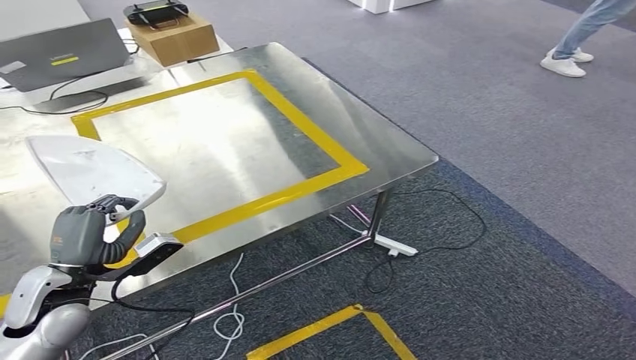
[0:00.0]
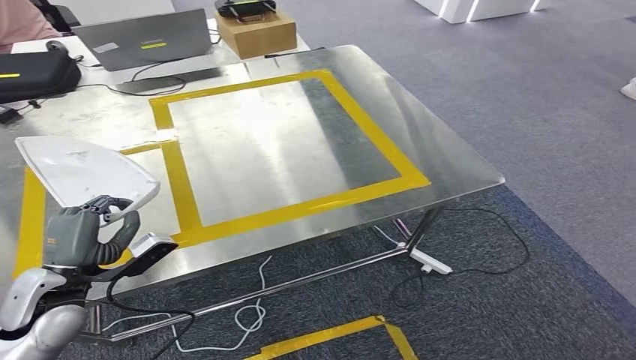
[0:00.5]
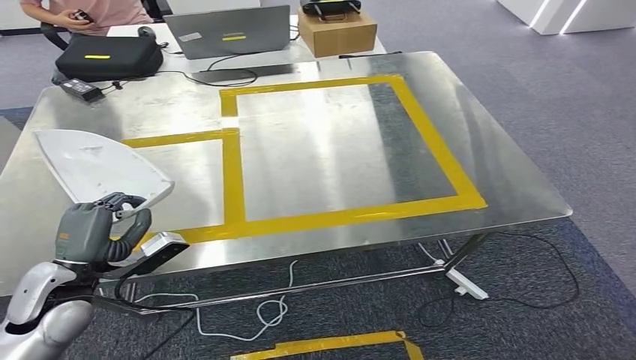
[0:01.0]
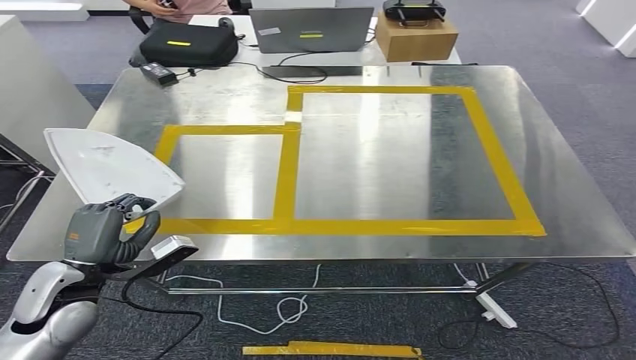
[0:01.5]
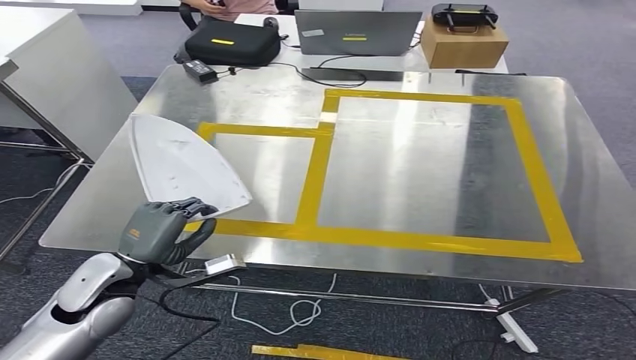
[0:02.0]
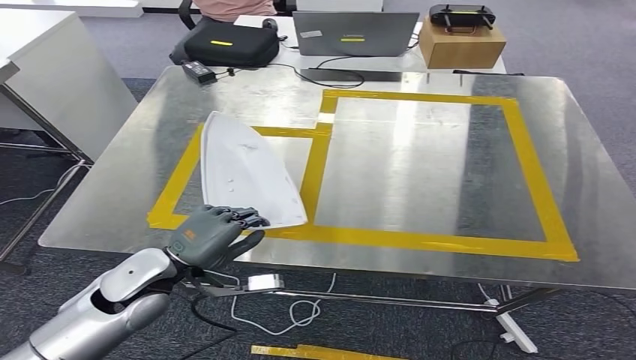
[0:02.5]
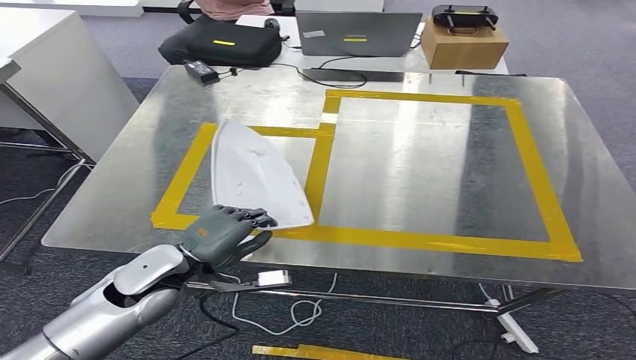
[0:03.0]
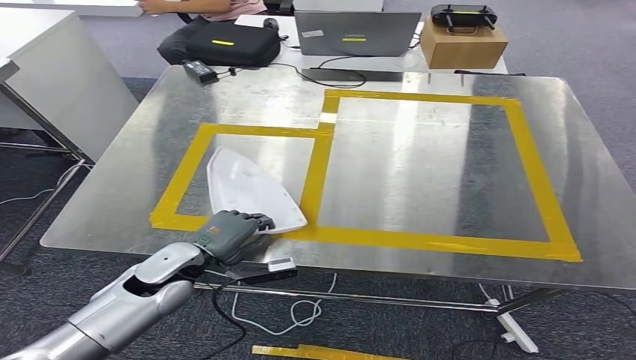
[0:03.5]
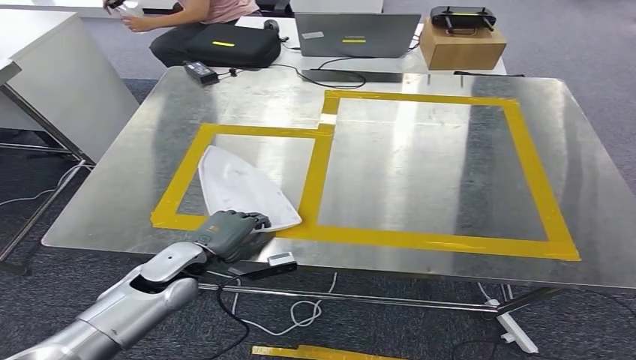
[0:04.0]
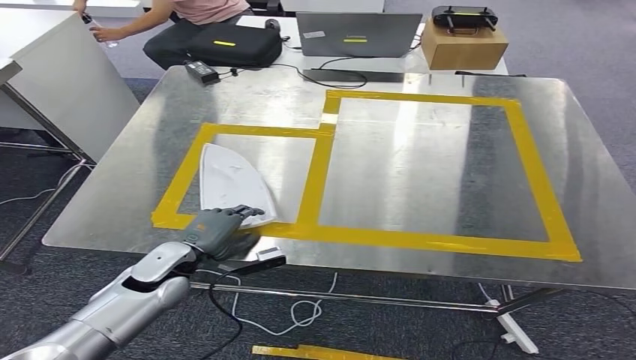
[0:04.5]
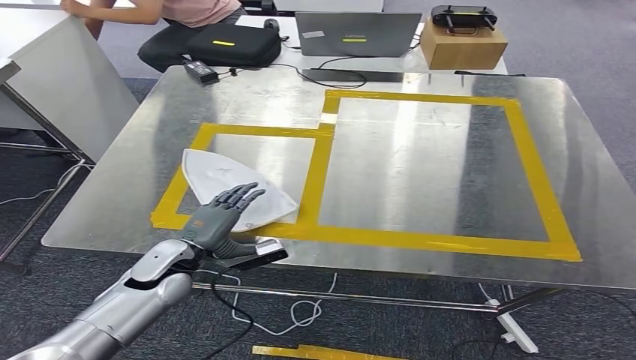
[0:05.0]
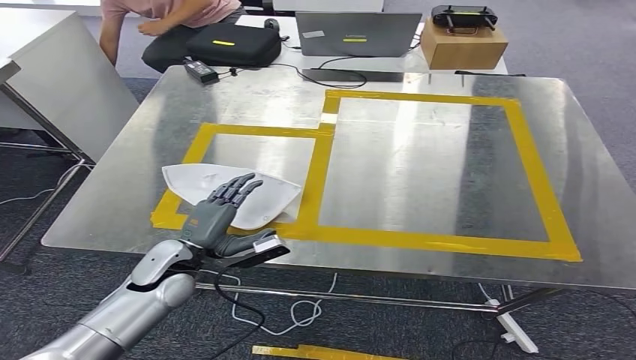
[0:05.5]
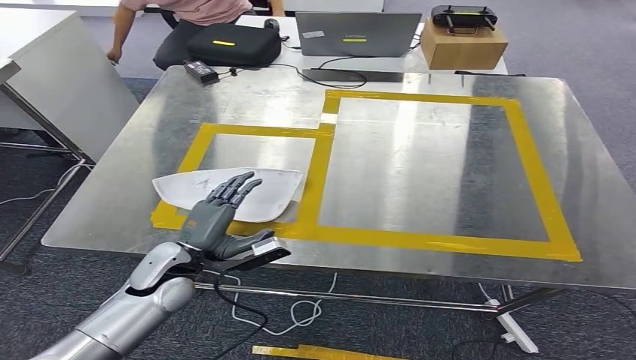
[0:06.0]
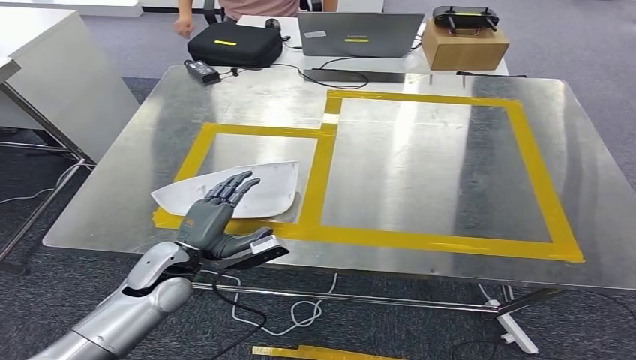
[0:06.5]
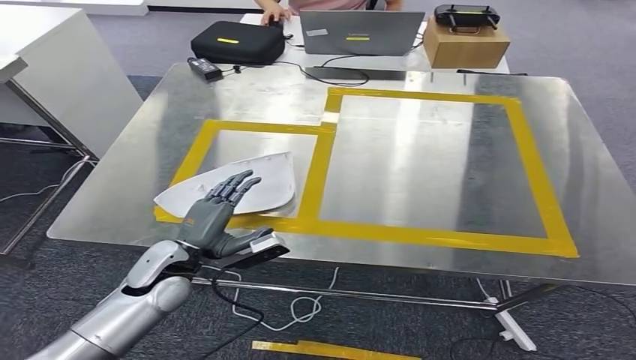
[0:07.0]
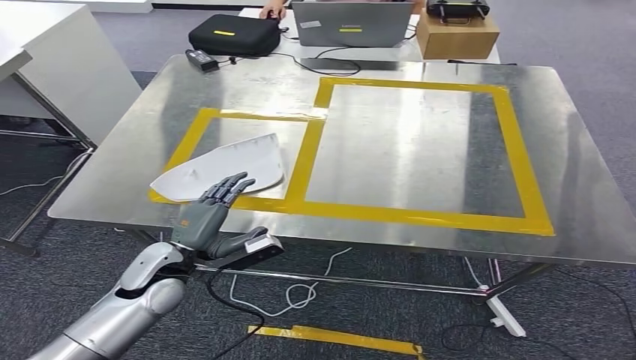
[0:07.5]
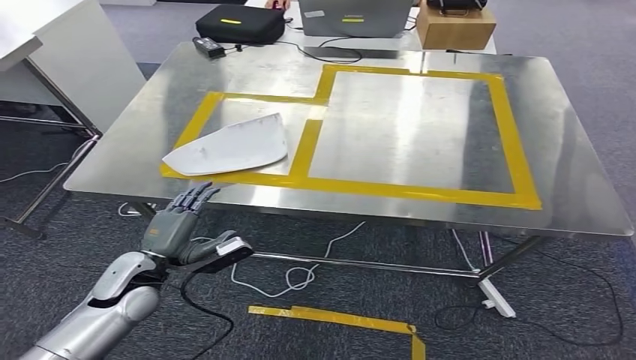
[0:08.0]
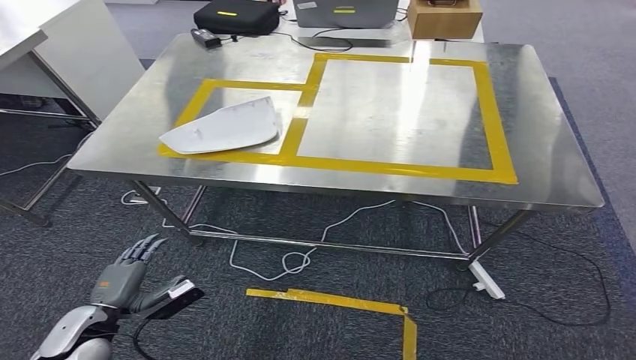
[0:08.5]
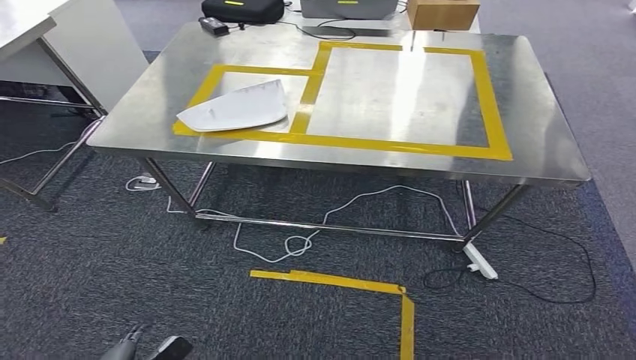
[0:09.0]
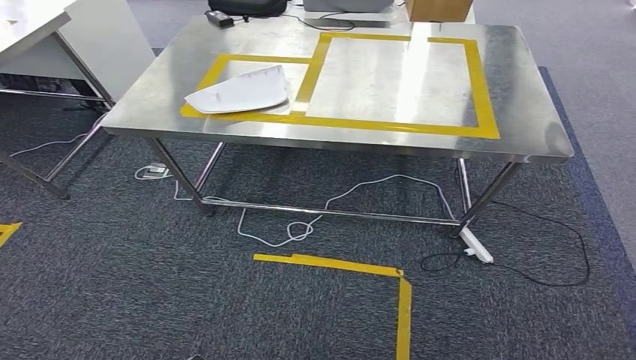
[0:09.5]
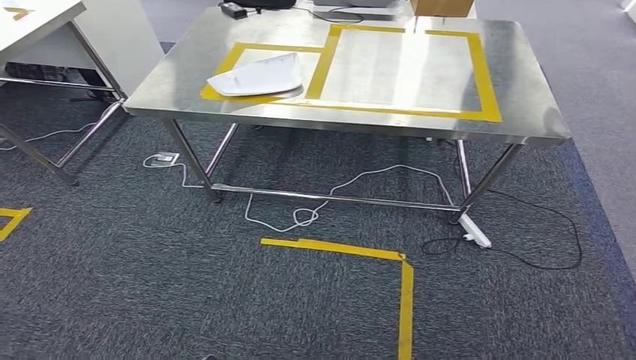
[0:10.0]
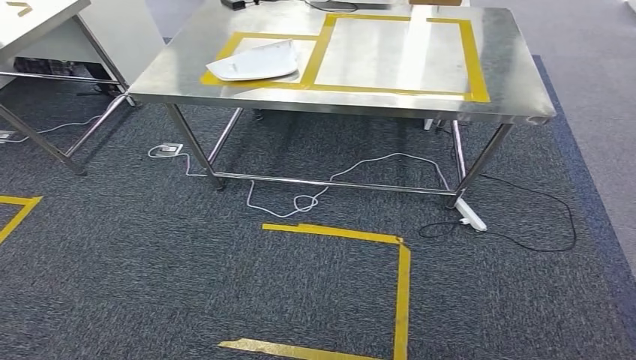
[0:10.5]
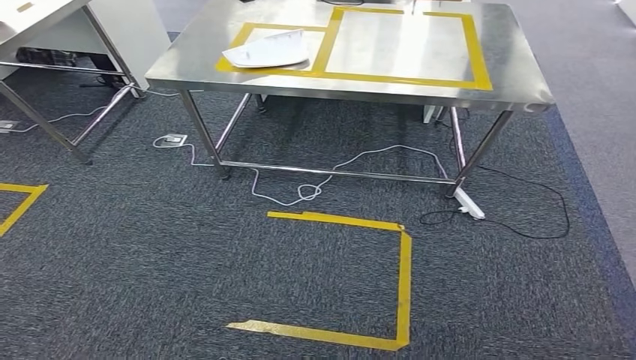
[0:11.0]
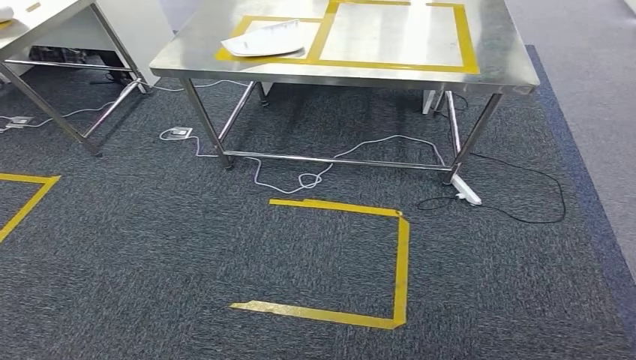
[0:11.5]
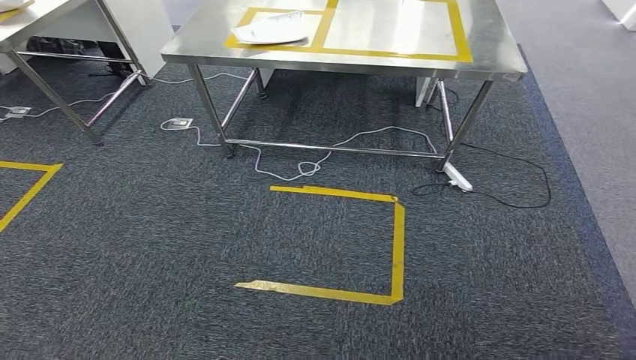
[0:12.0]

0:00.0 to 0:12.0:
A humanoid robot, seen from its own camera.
Step, 0:01.0 to 0:10.0: Insert the small component into the corresponding slot on the workbench.
0:02.0 to 0:04.0: The left hand moves downward and to the right, approximately 10 cm.

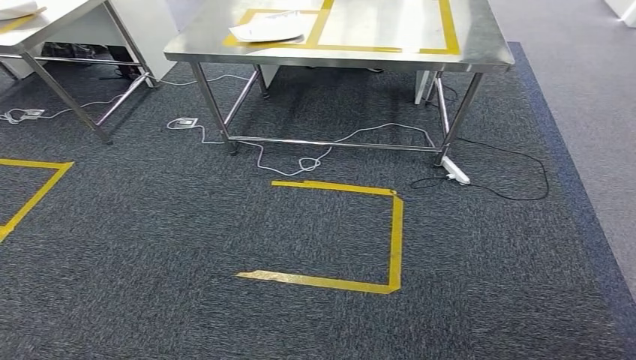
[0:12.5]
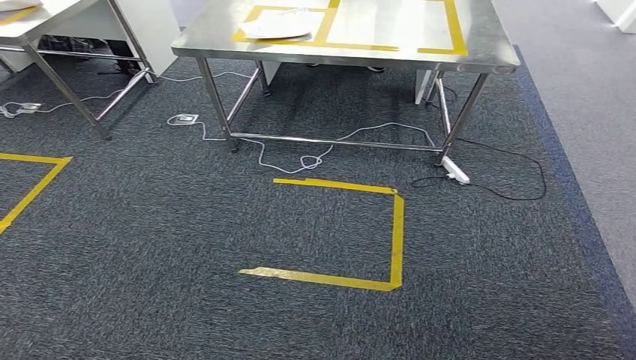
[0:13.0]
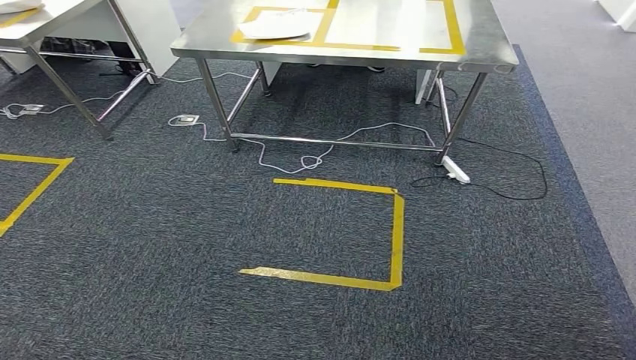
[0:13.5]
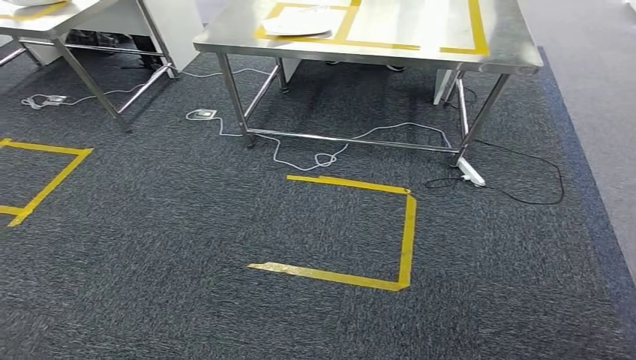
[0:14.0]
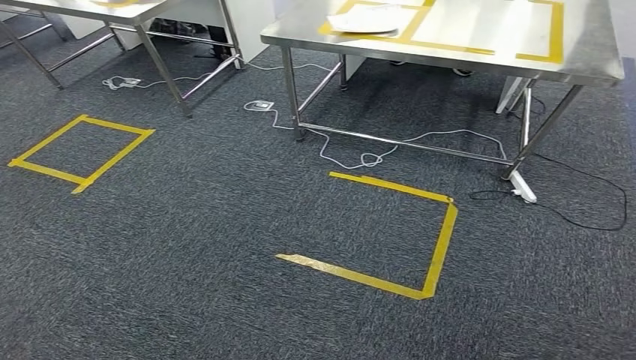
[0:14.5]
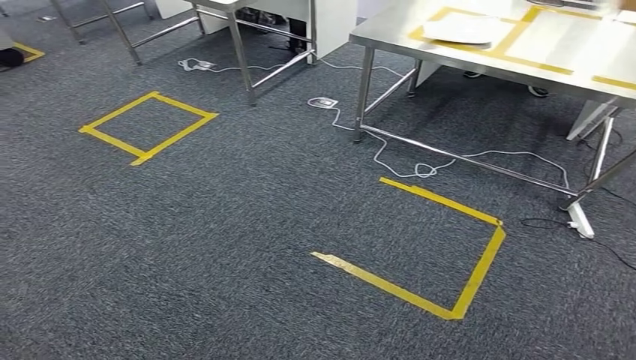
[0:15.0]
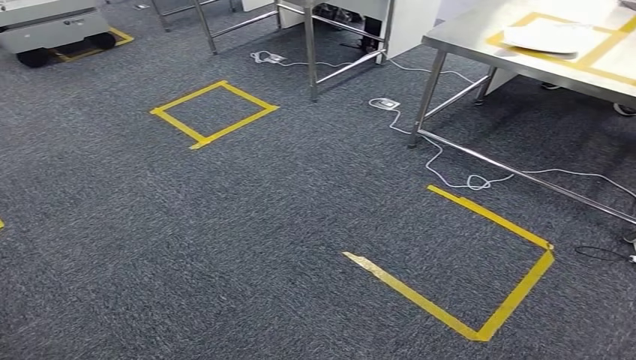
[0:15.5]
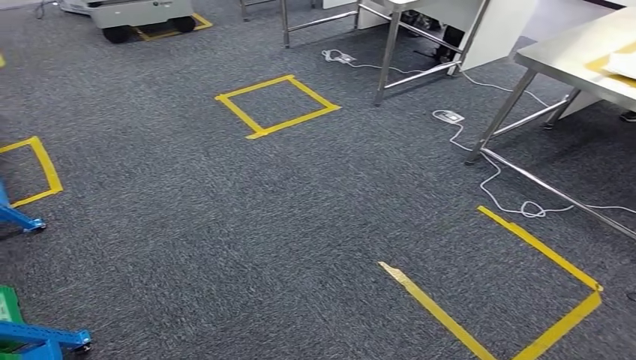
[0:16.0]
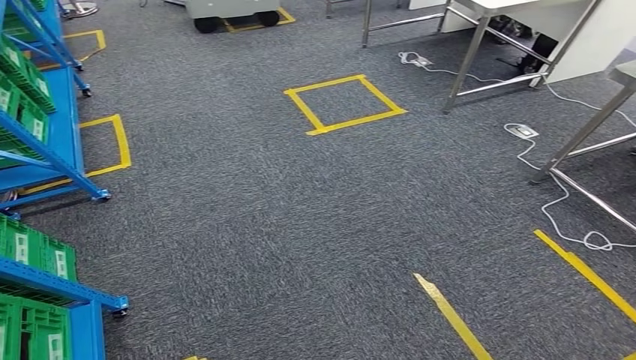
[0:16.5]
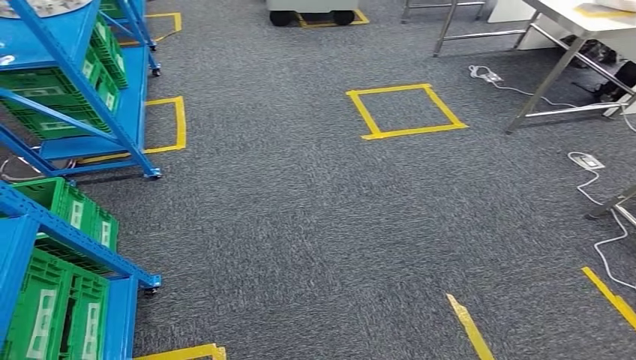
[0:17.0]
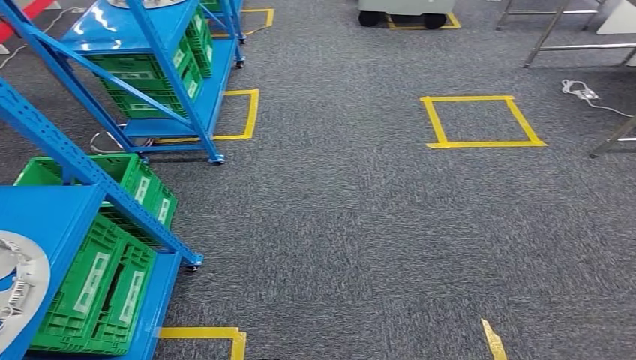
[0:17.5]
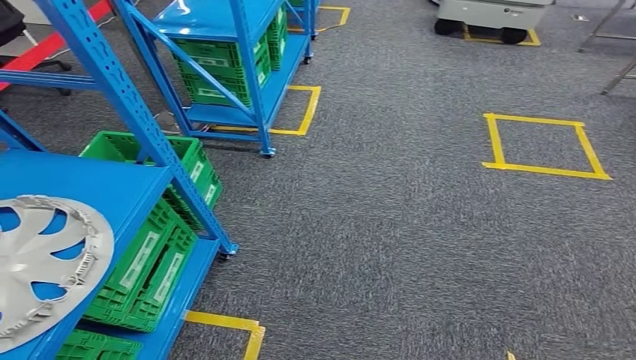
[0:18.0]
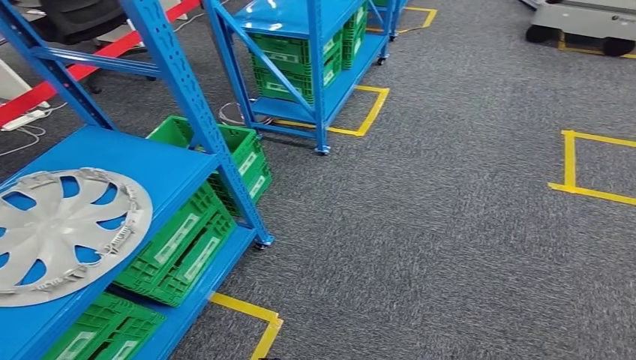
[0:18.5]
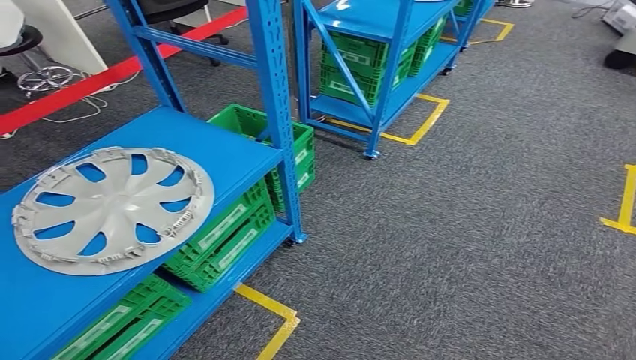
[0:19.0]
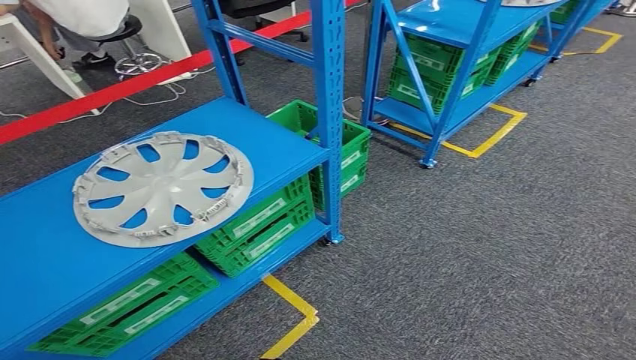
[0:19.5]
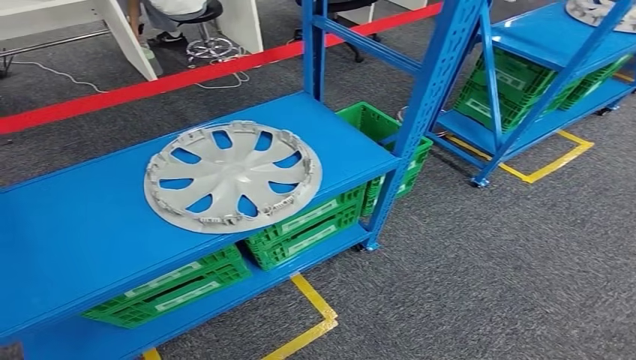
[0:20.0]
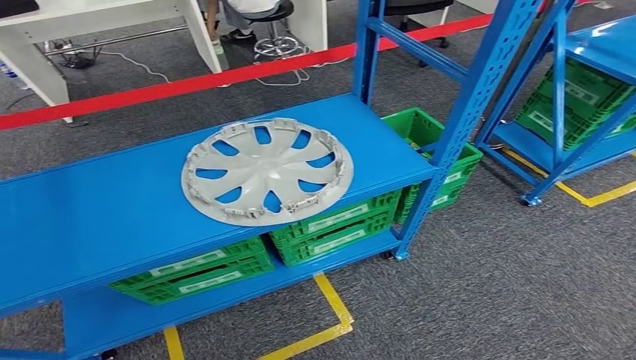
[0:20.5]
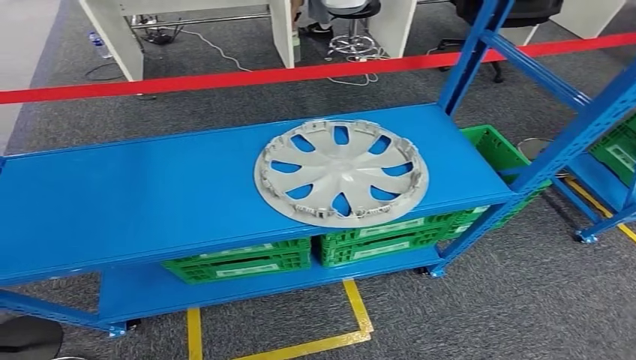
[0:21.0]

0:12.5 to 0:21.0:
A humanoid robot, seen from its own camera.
Step, 0:12.5 to 0:21.0: Return to the initial position at the workbench.
